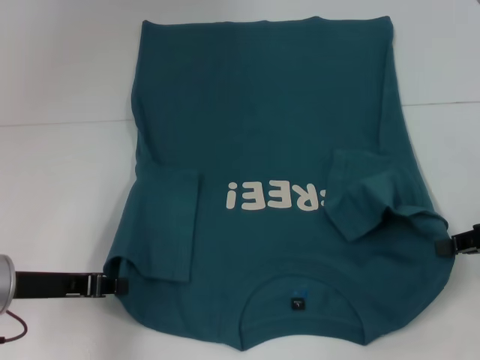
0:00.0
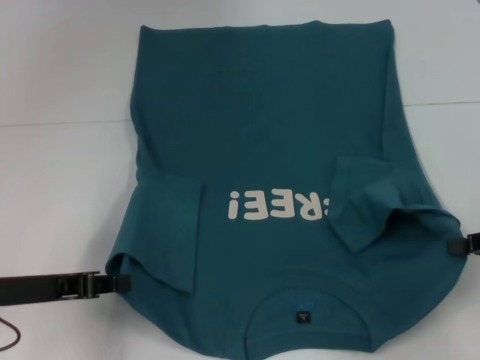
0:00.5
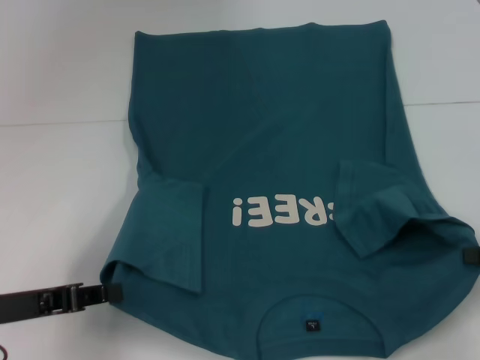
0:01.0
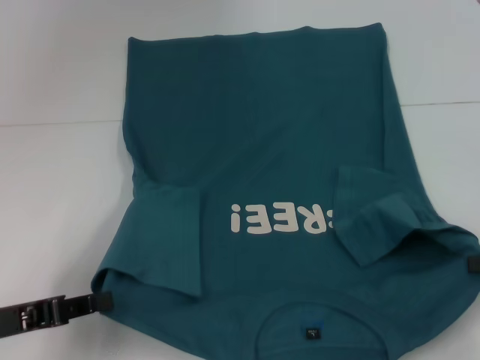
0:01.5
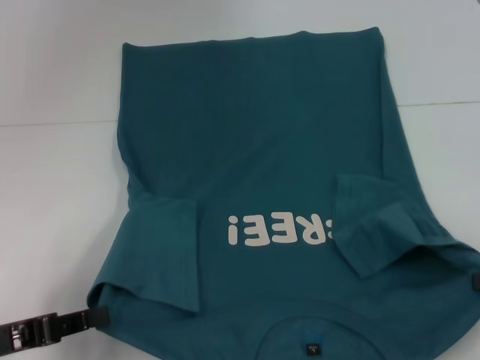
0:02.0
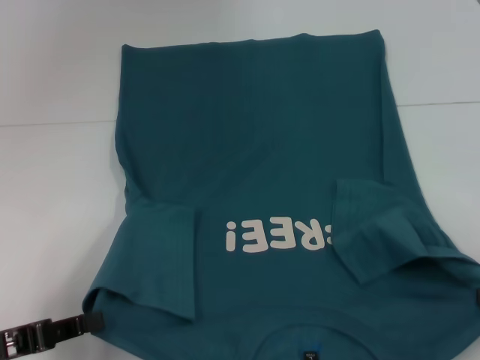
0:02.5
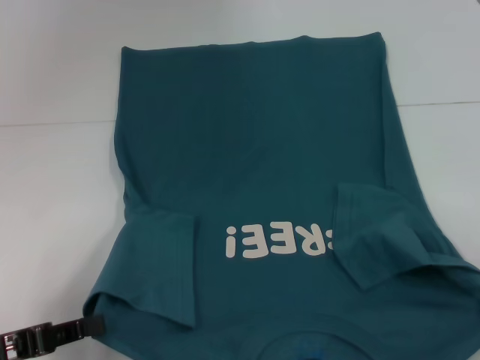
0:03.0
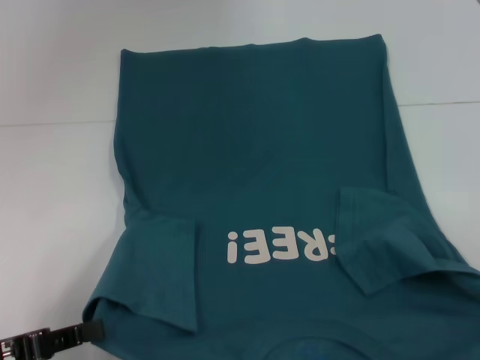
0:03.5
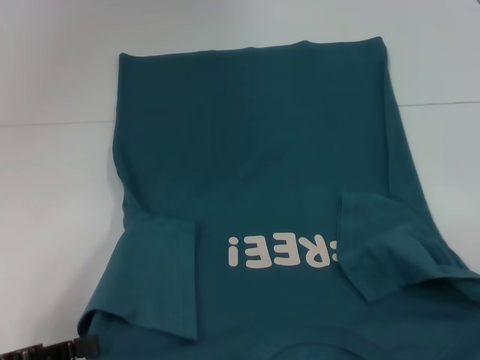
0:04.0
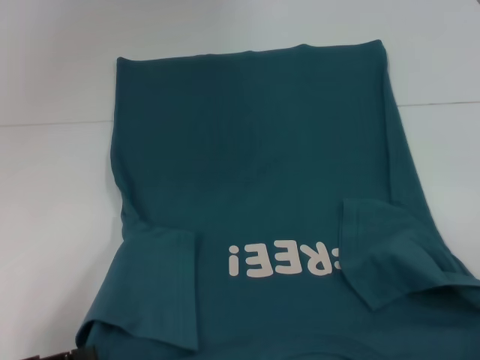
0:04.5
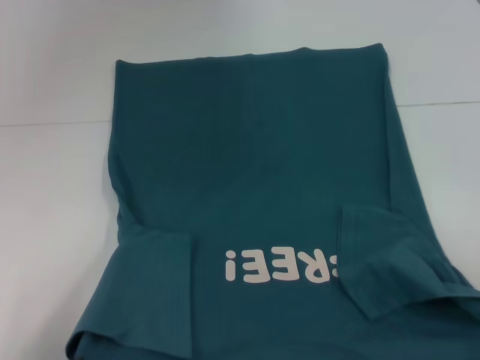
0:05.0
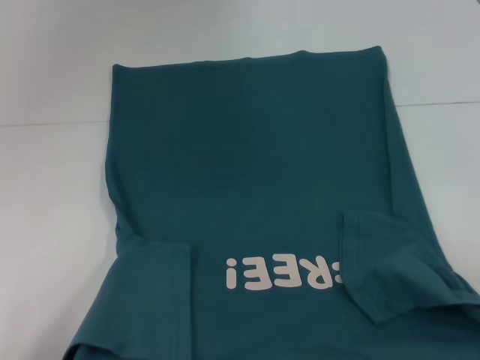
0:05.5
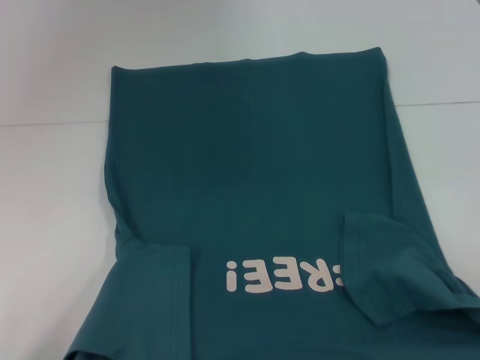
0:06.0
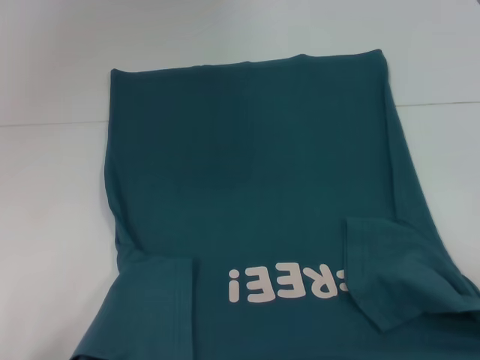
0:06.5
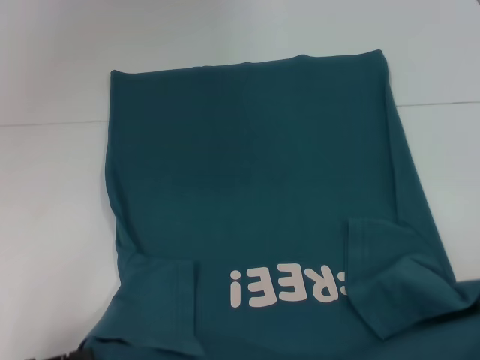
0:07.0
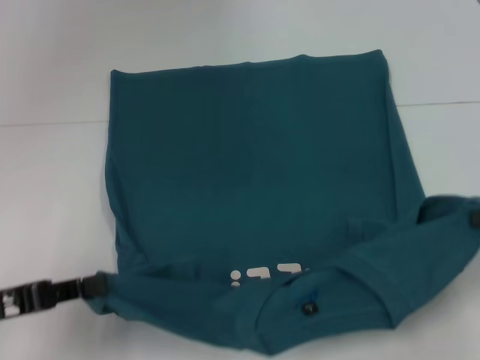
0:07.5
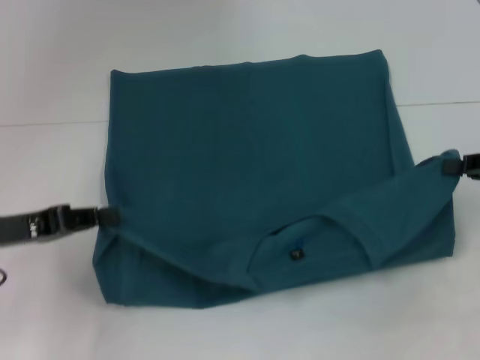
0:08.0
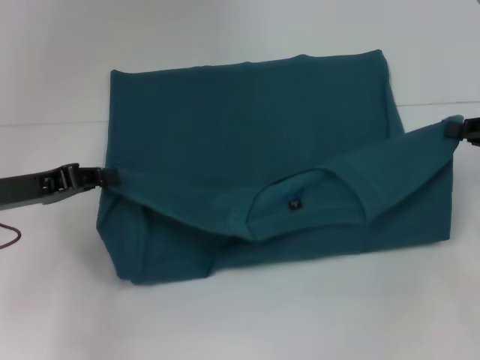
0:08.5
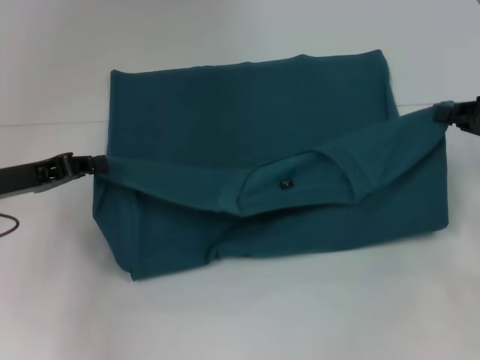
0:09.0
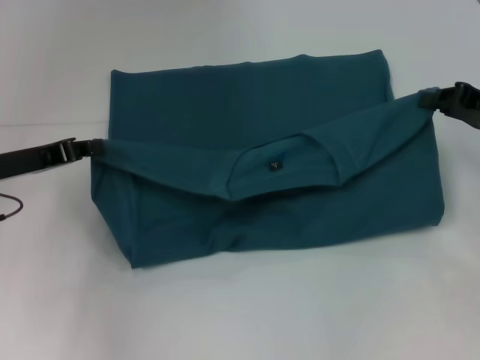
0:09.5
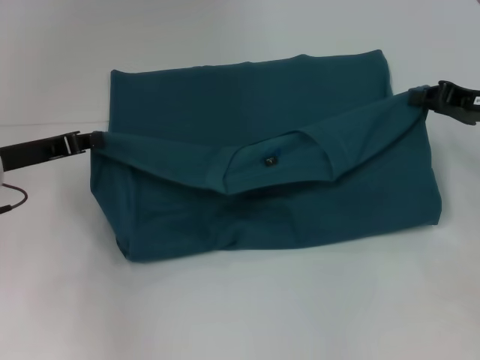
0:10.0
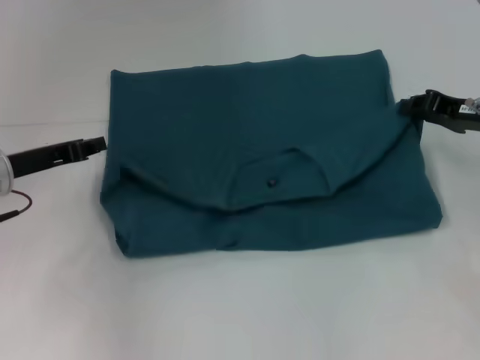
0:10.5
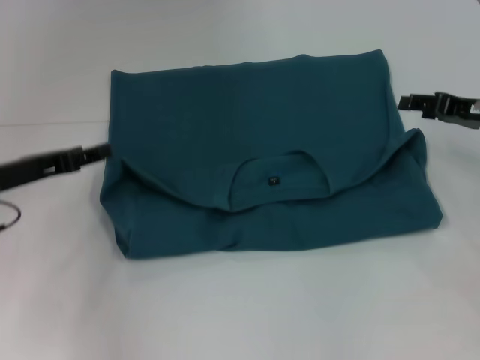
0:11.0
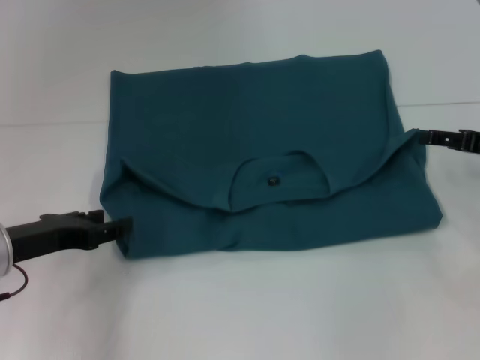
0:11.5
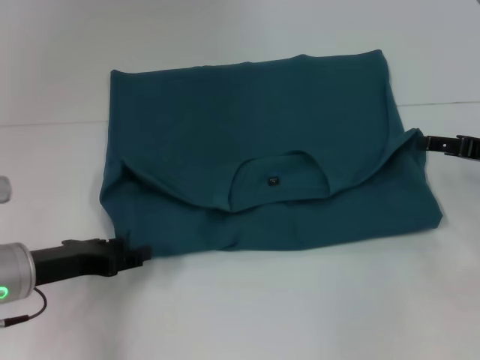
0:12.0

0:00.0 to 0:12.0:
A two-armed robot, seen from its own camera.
Step, 0:00.0 to 0:10.5: Fold the clothes to the left.
Step, 0:00.0 to 0:10.5: Fold the clothes to the right.
0:00.0 to 0:02.0: The grippers both shift backward by about 5 cm.
0:02.0 to 0:04.0: The grippers stay close to where they were, moving slightly.
0:04.0 to 0:06.0: There are only small adjustments of the grippers.
0:06.0 to 0:08.0: The right gripper heads forward and upward, covering some 15 cm; the left gripper is displaced forward by about 15 cm.
0:08.0 to 0:10.0: The two grippers go roughly 10 cm forward.
0:10.0 to 0:12.0: The right gripper changes place by some 5 cm, and opens up. The left gripper heads backward and downward, covering roughly 10 cm, and opens.

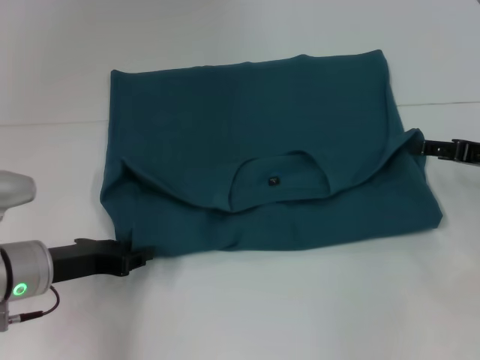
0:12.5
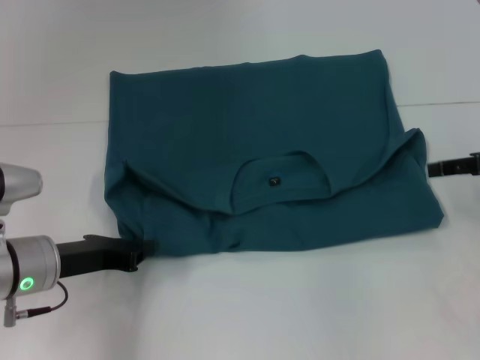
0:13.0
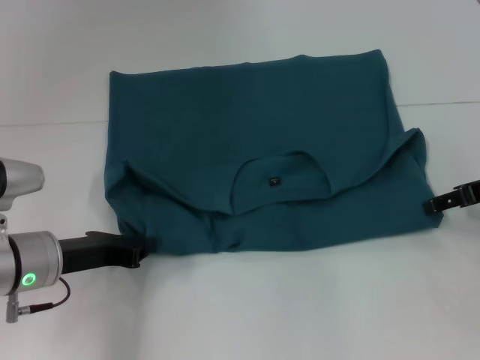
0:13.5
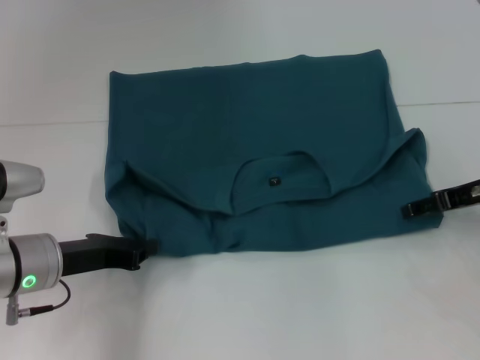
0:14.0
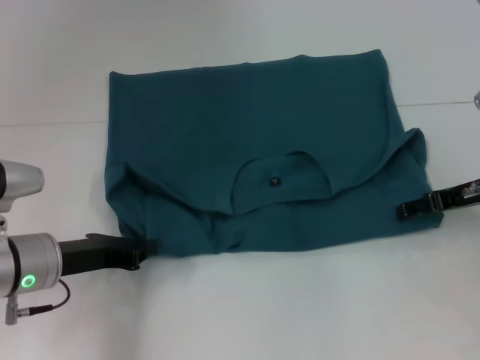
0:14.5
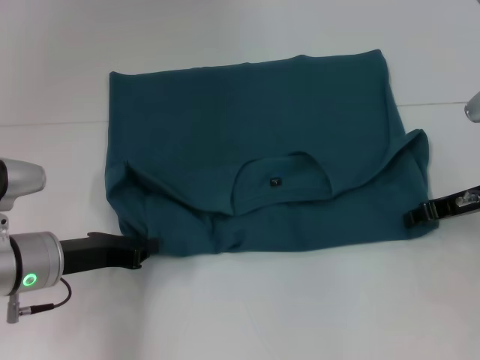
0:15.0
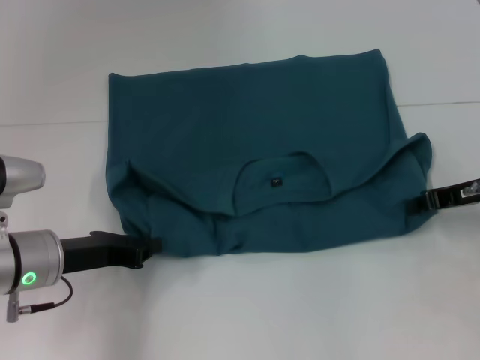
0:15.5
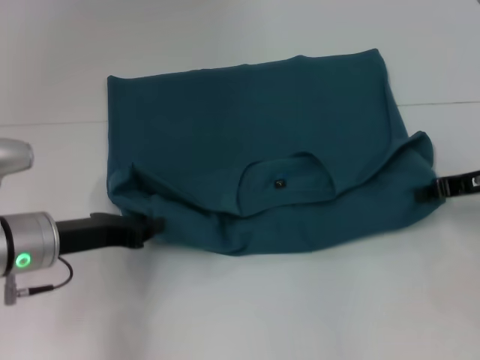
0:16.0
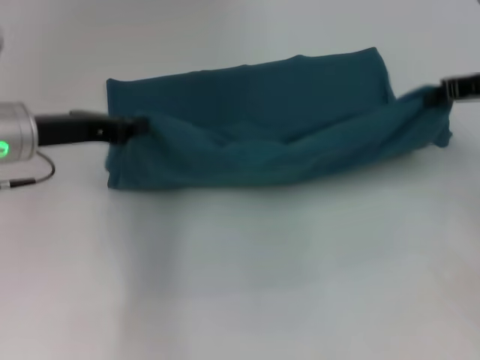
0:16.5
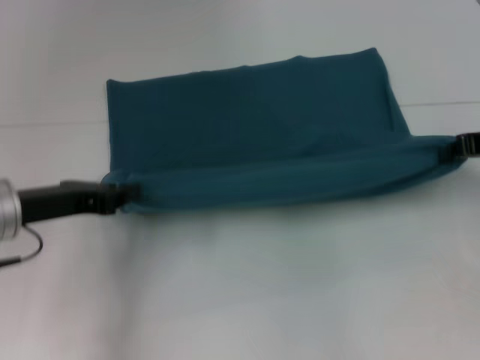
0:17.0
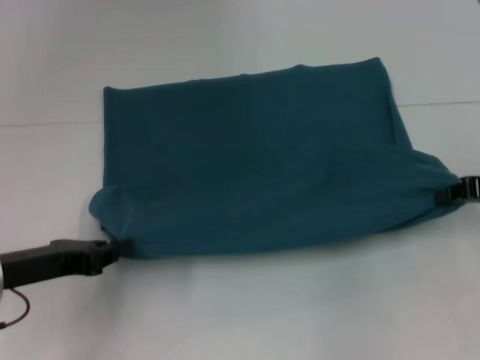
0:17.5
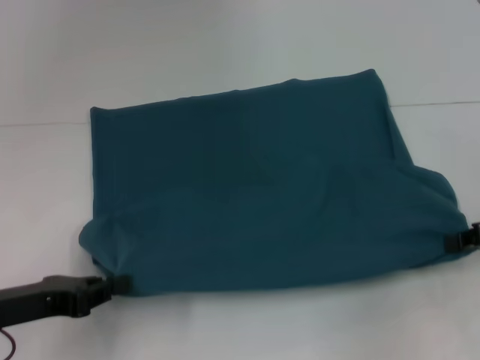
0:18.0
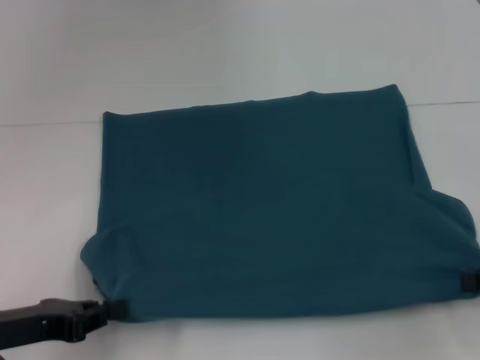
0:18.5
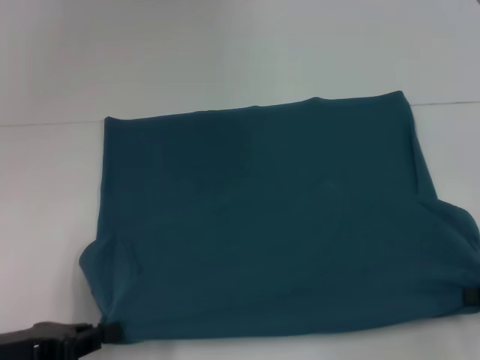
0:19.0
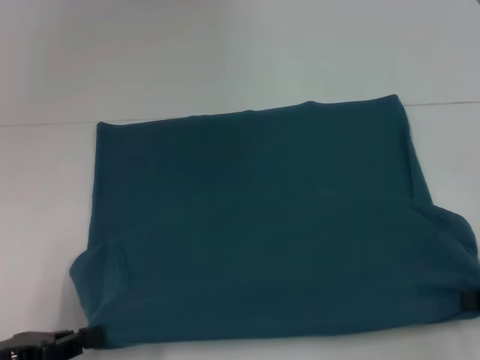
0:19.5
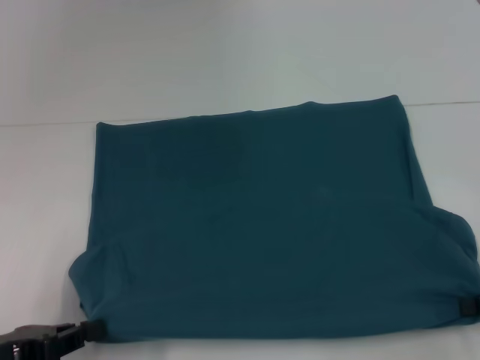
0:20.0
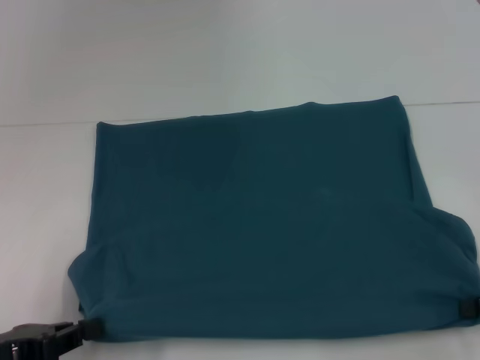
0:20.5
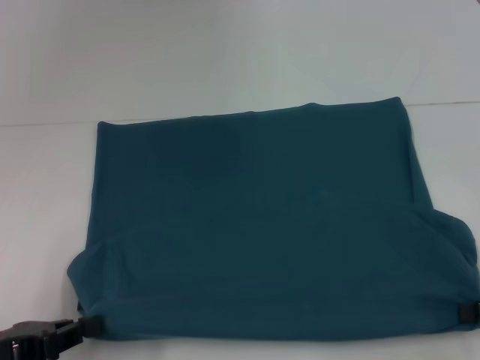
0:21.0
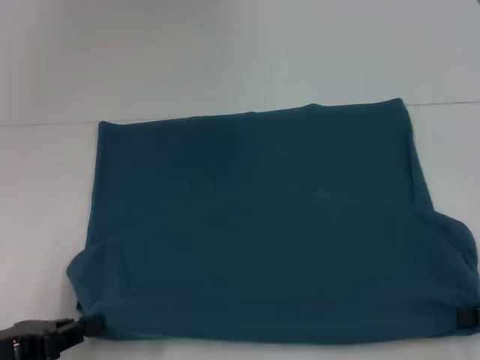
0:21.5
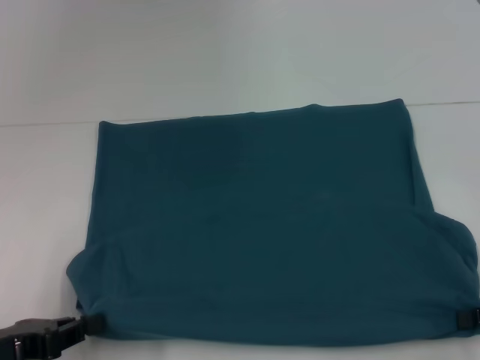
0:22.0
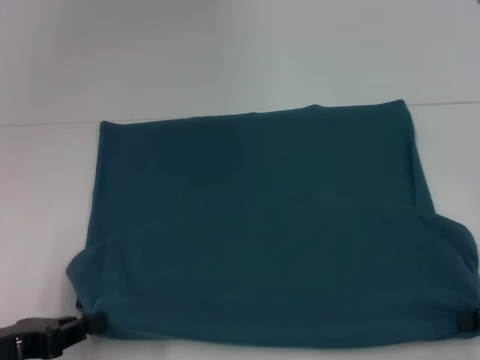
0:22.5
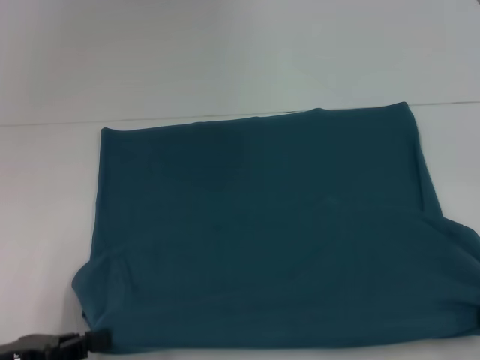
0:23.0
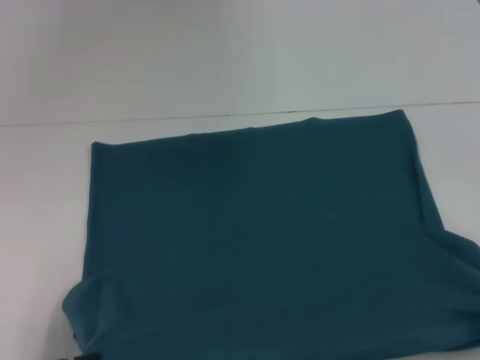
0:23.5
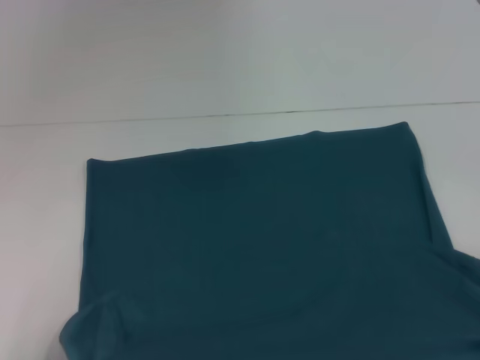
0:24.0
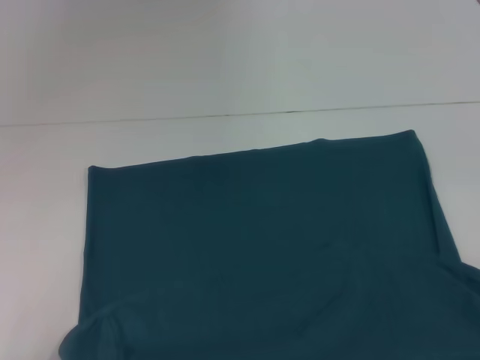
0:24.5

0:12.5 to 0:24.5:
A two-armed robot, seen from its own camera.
Step, 0:12.5 to 0:19.0: Pull the clothes with your left hand.
Step, 0:12.5 to 0:19.0: Pull the clothes with your right hand.
0:12.5 to 0:14.5: The left gripper closes its fingers.
0:14.5 to 0:16.5: The right gripper shifts about 10 cm upward, and closes; the left gripper shifts roughly 10 cm upward and forward.
0:16.5 to 0:18.5: The two grippers go about 20 cm backward and downward.
0:18.5 to 0:20.5: The grippers make only small movements.
0:20.5 to 0:22.5: Both grippers stay about where they are.
0:22.5 to 0:24.5: The two grippers go some 10 cm backward.

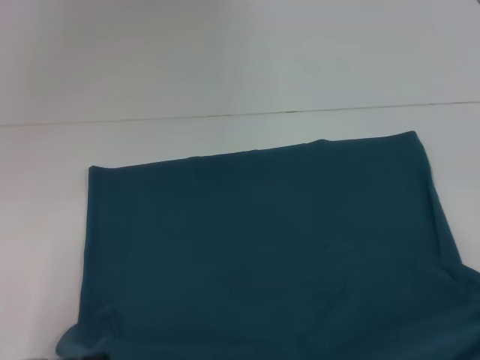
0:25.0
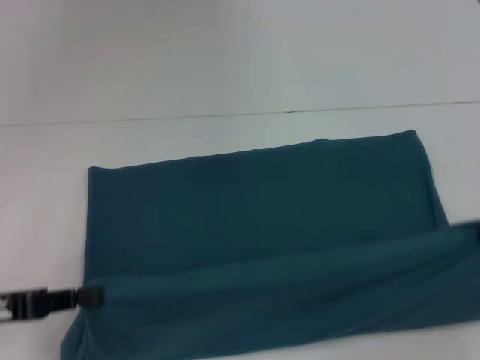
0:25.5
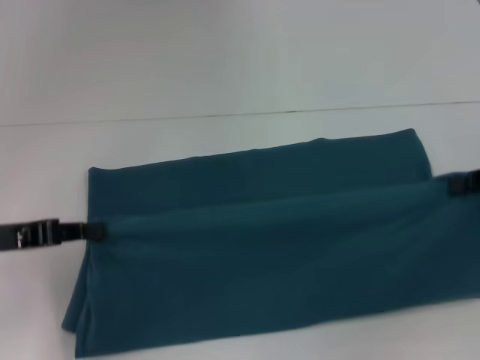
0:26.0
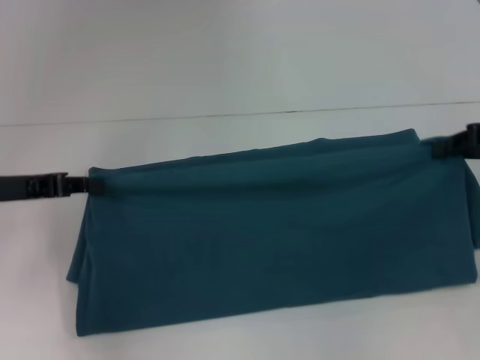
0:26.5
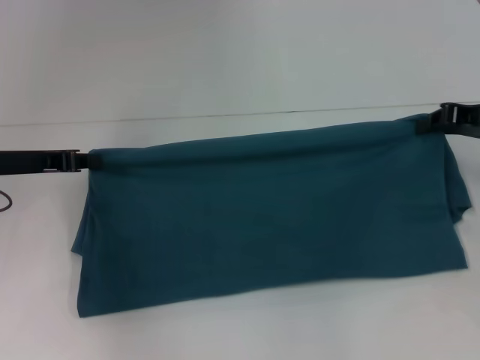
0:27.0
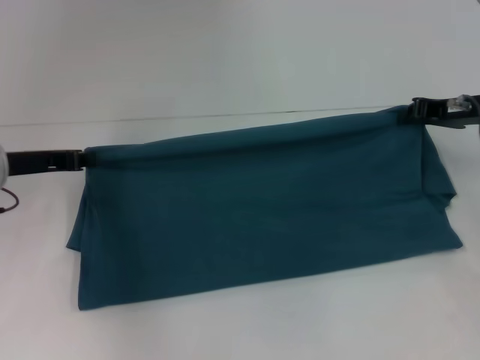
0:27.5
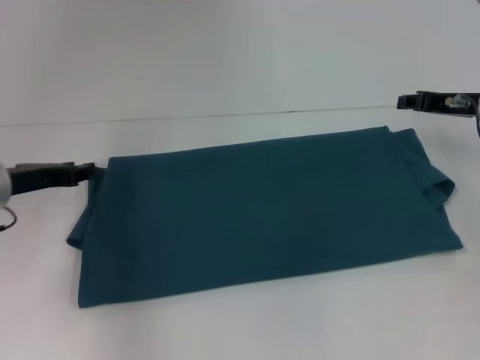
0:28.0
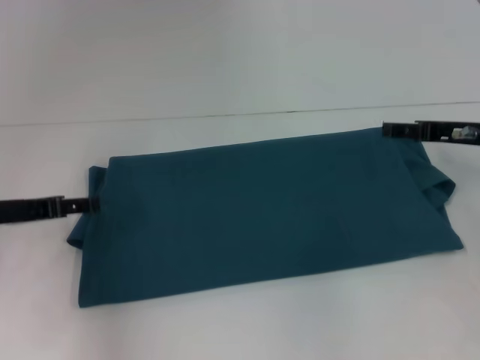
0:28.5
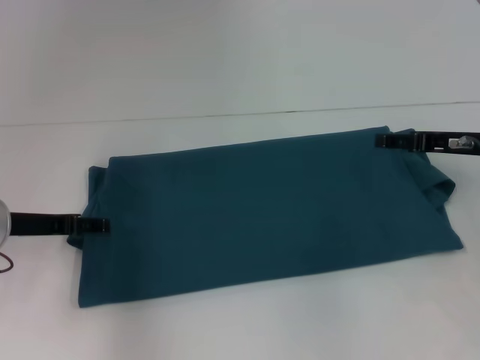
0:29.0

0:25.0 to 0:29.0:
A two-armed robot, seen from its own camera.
Step, 0:25.0 to 0:27.5: Fold the clothes to the left.
Step, 0:25.0 to 0:27.5: Fold the clothes to the right.
0:25.0 to 0:27.0: Both grippers travel together forward, approximately 20 cm.
0:27.0 to 0:29.0: The right gripper moves roughly 5 cm, and opens up. Meanwhile the left gripper shifts by approximately 5 cm, and opens.
